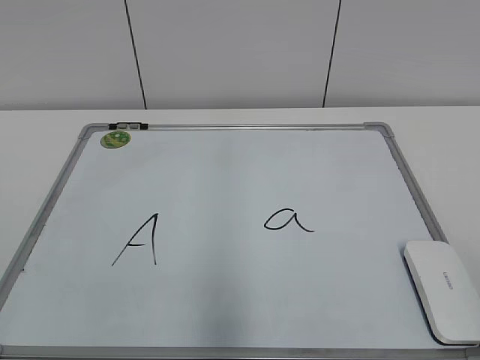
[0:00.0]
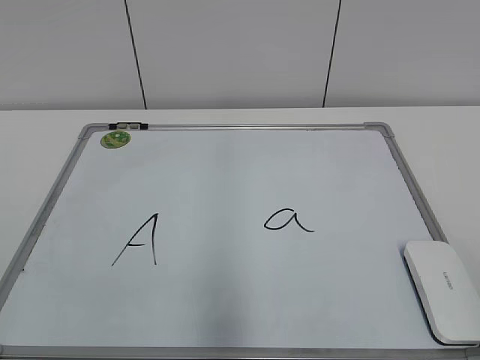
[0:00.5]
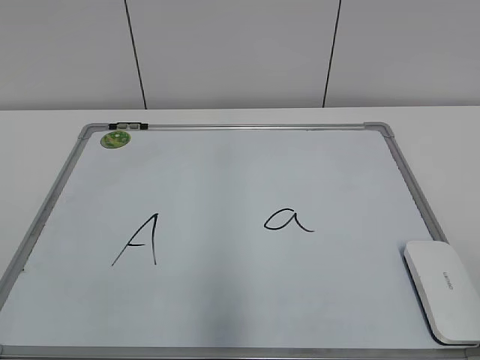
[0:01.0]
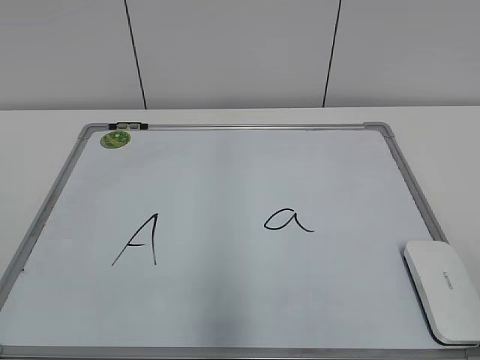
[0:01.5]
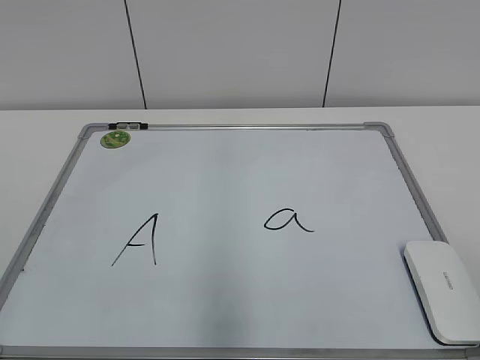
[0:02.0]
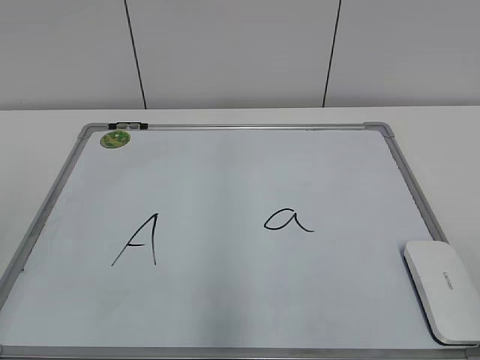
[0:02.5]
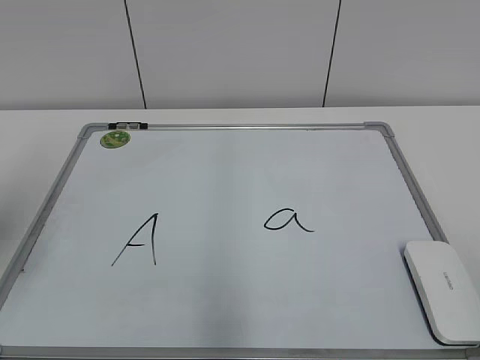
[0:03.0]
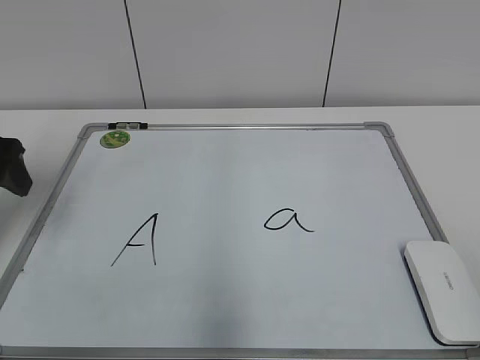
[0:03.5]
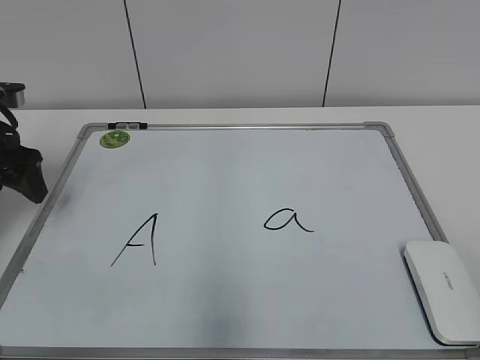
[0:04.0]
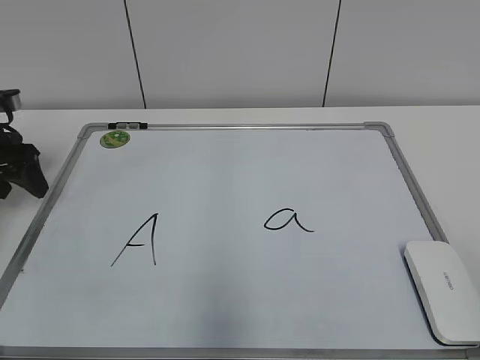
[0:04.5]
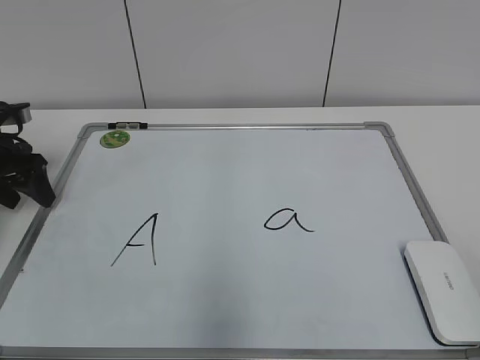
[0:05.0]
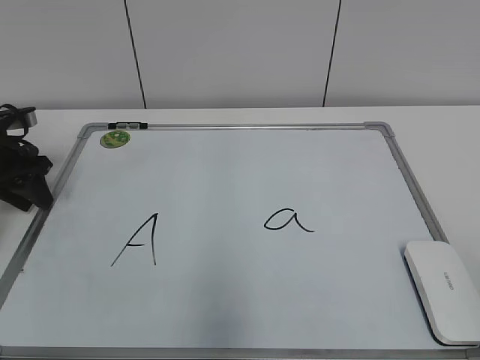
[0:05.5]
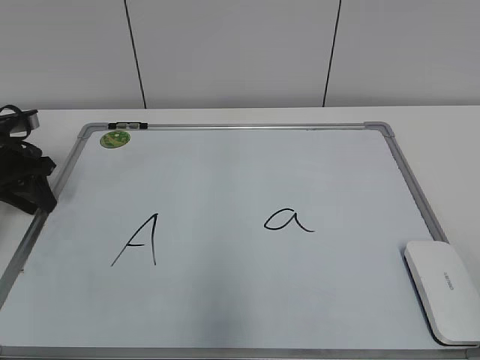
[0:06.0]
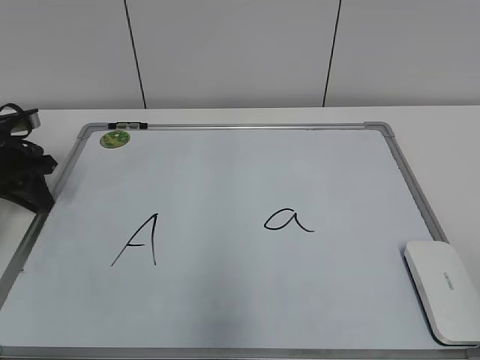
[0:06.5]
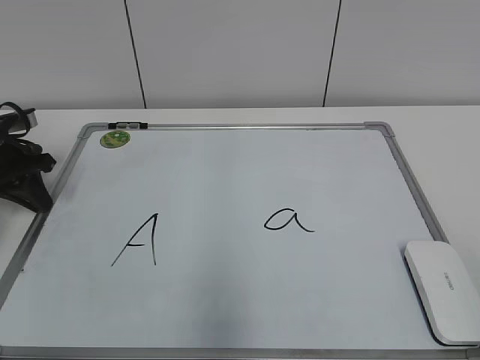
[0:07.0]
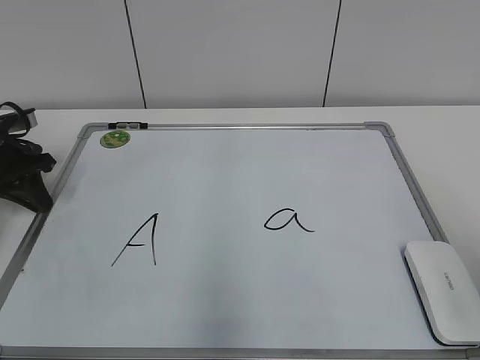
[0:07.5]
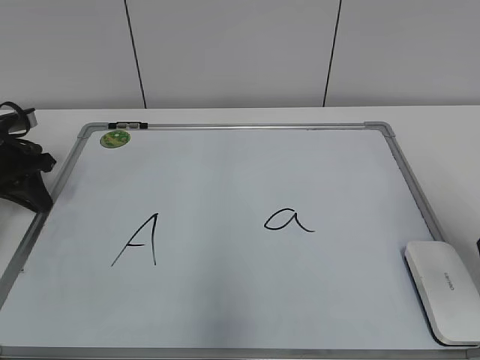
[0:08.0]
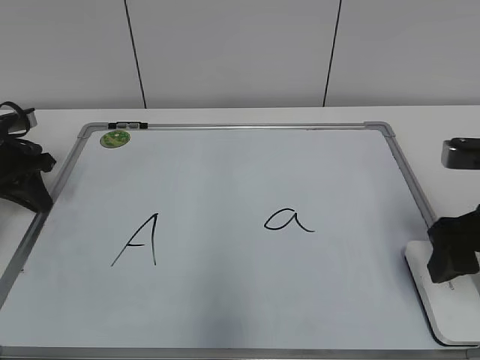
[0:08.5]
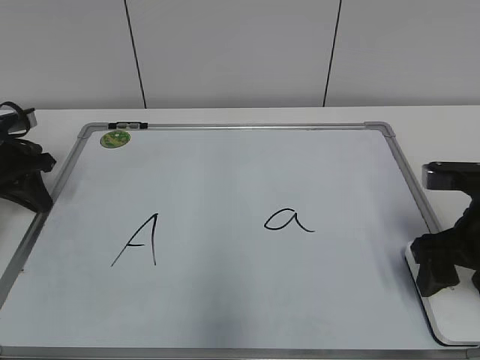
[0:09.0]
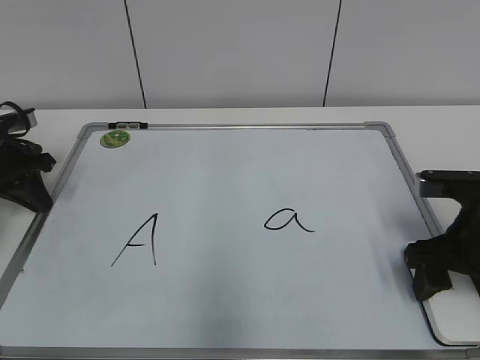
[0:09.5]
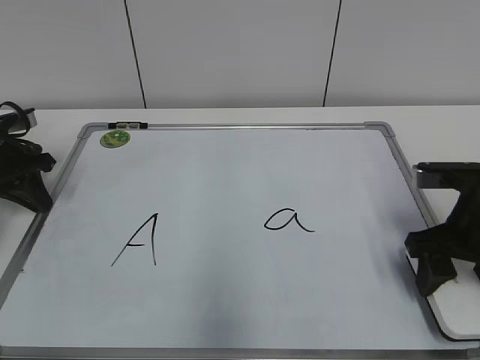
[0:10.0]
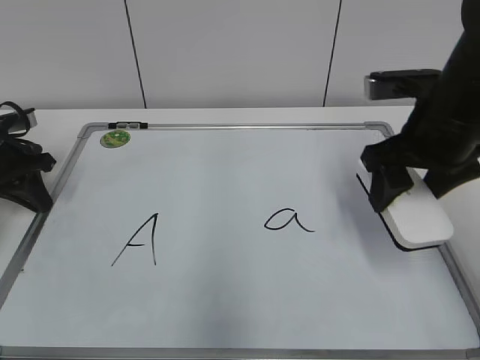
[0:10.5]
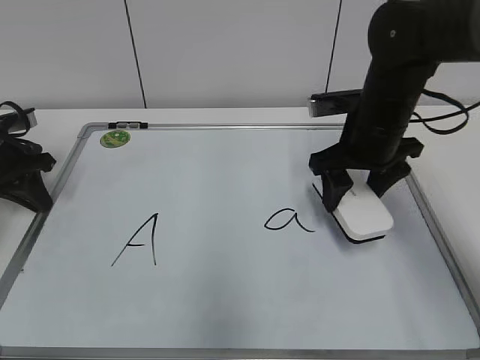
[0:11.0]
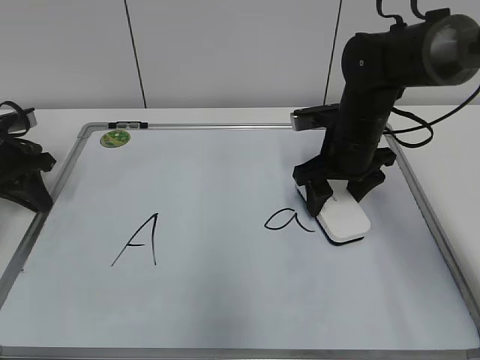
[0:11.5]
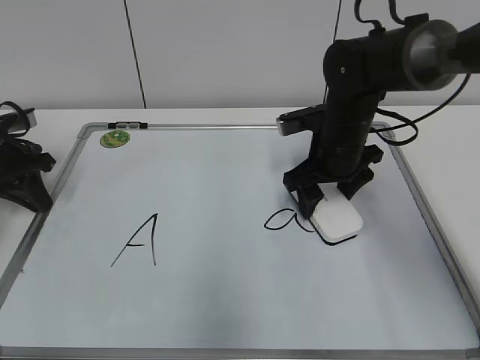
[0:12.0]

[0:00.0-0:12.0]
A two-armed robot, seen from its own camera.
Task of the whole recording: pick up the eraser on the blackboard and erase the letter "a".
Step, 0:00.0 to 0:06.5: Hold the drawing board steady with your left hand.
Step, 0:07.0 to 0:09.5: Grab the eraser with your right hand.
0:02.0 to 0:04.0: The left gripper moves forward, some 35 cm.
0:04.0 to 0:06.0: The left gripper heads downward and forward, covering about 10 cm, and closes.
0:06.0 to 0:08.0: The left gripper closes its fingers, while the right gripper heads forward, covering approximately 20 cm.
0:08.0 to 0:10.0: The right gripper is displaced downward and forward by some 15 cm.
0:10.0 to 0:12.0: The right gripper goes roughly 20 cm forward and to the left.

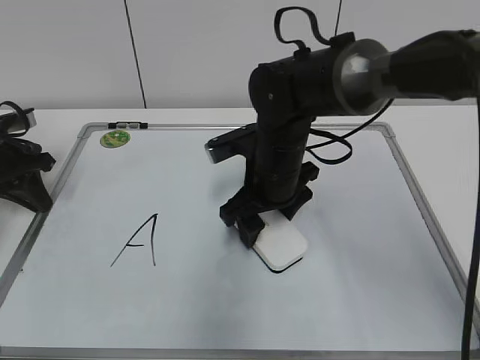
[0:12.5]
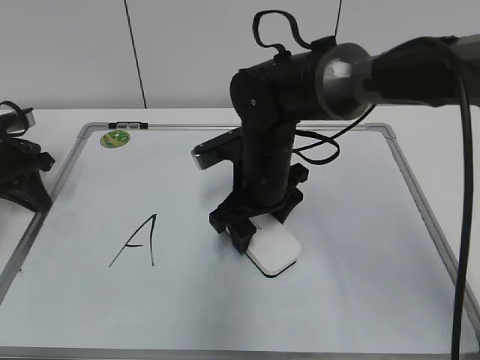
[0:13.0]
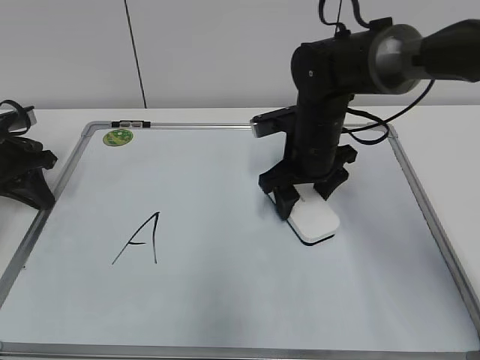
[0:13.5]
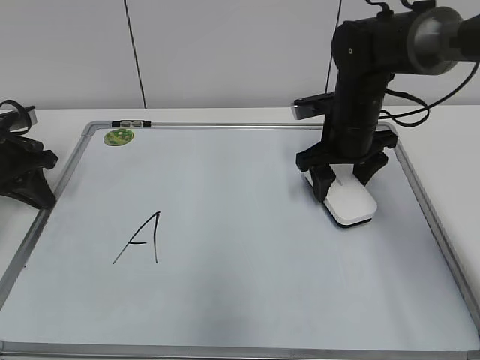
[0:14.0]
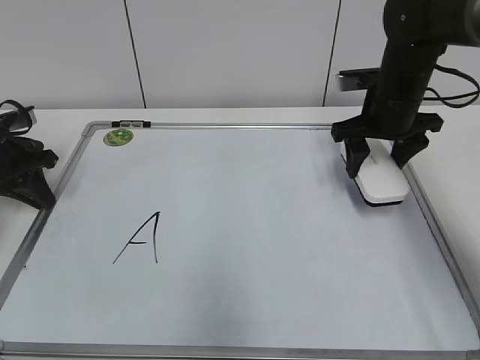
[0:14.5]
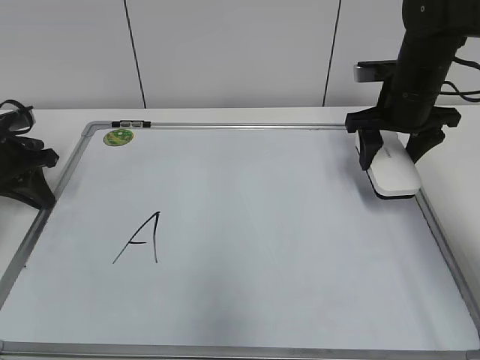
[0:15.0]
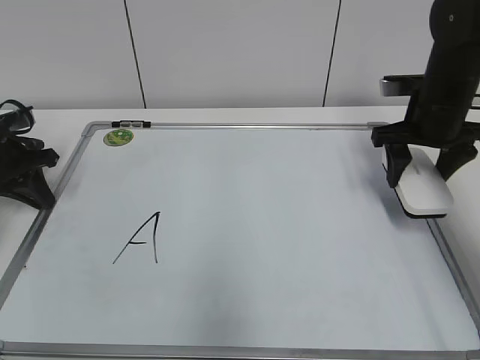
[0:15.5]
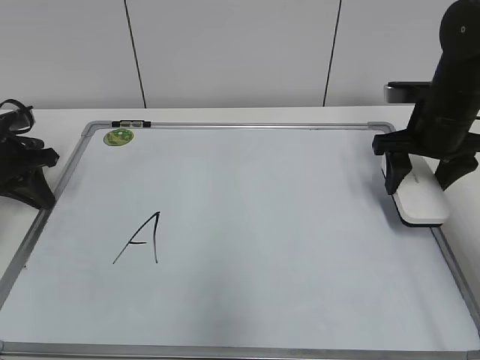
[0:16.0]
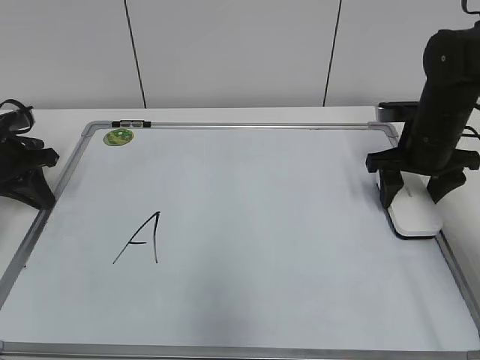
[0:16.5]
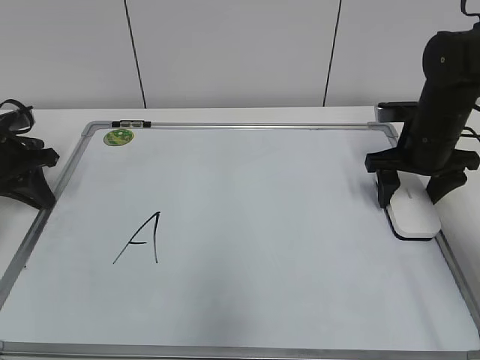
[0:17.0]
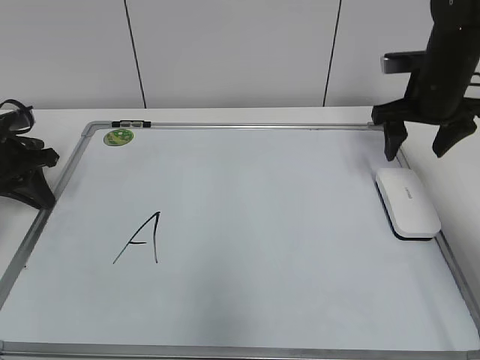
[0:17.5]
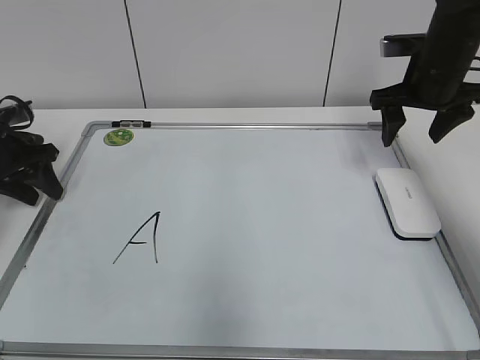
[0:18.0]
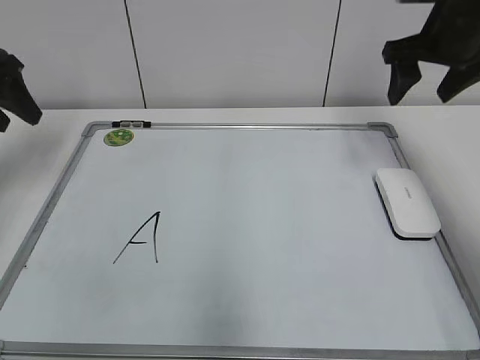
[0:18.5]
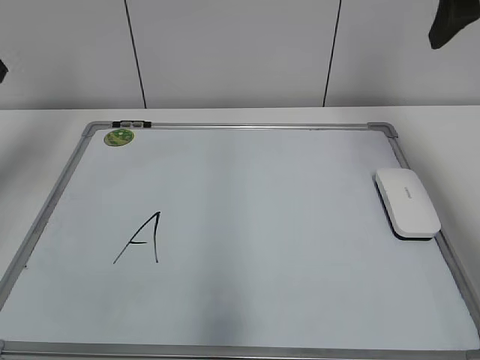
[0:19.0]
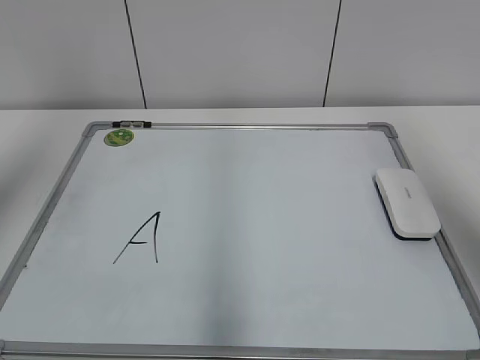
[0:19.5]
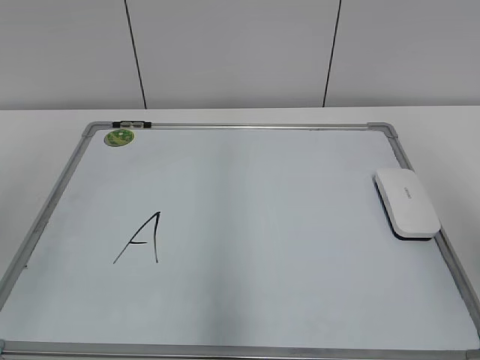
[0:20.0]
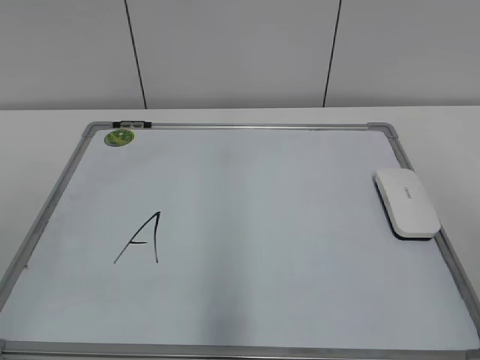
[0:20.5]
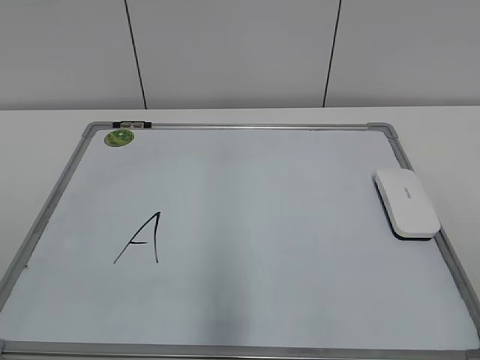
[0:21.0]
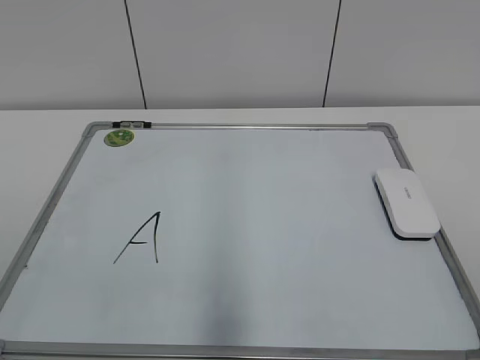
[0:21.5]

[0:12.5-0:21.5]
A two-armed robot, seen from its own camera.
Task of the whole recording: pick up the eraser on the blackboard and erase the letter "a".
Step, 0:14.5 to 0:16.5: Put down the eraser with your right hand.
0:12.5 to 0:14.5: The right gripper moves to the right and forward, about 15 cm.
0:14.5 to 0:17.0: The right gripper shifts approximately 5 cm to the right.
0:17.0 to 0:19.5: The two grippers go some 30 cm upward and backward. The left gripper opens.
0:19.5 to 0:21.5: The two grippers go approximately 25 cm backward and downward.
